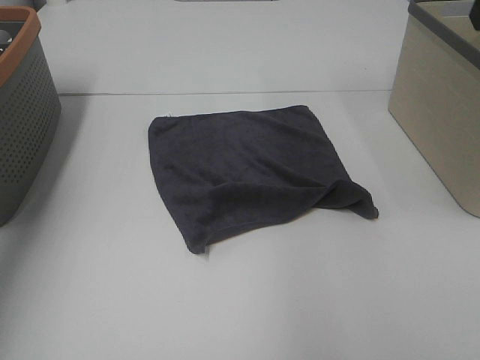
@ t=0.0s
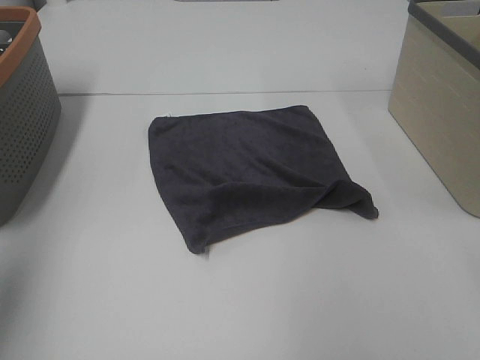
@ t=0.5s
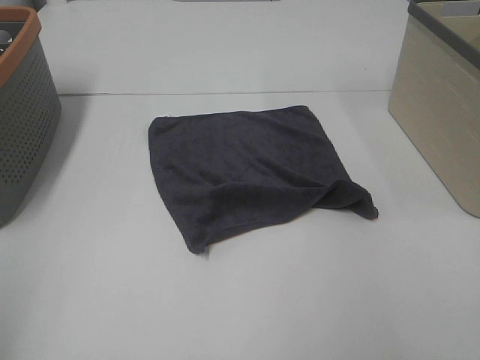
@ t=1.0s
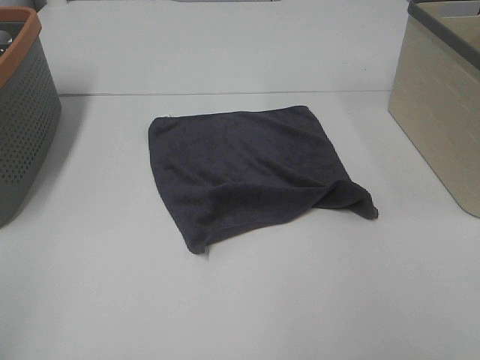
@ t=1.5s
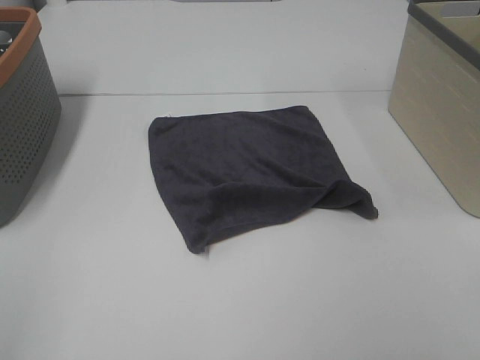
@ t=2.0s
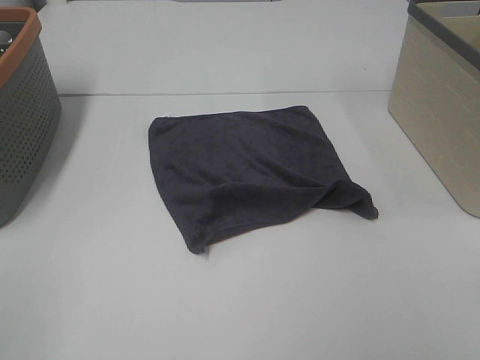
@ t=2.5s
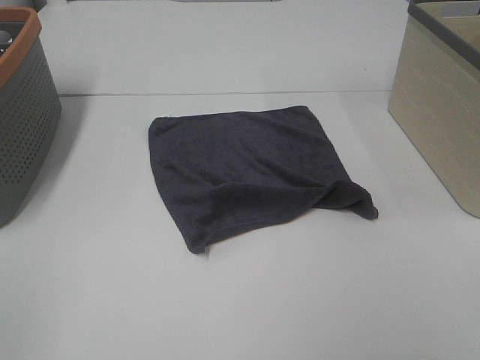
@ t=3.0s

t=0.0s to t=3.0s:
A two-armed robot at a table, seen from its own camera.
Task of the whole recording: Remove the towel and place it.
t=0.0s to t=1.5s: The left gripper moves backward and downward, roughly 30 cm.
